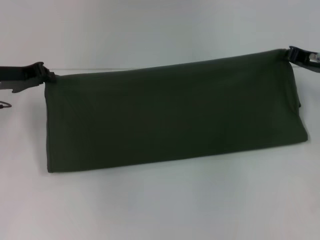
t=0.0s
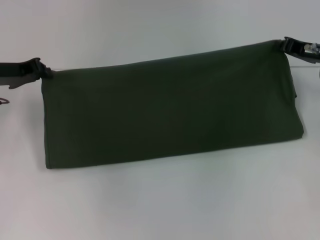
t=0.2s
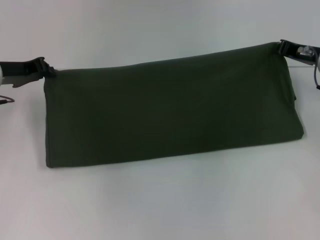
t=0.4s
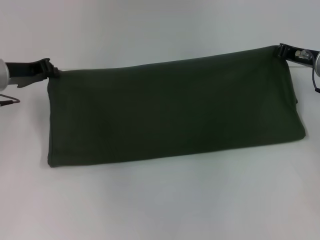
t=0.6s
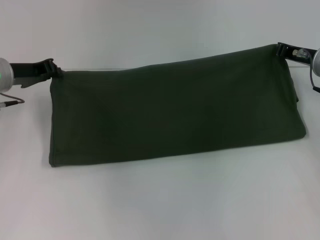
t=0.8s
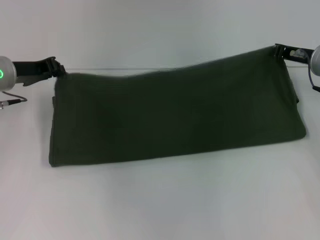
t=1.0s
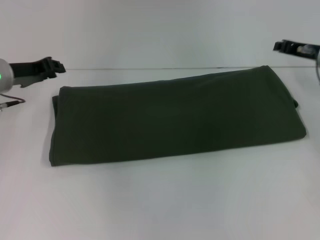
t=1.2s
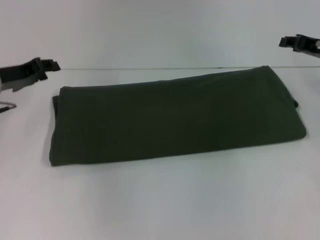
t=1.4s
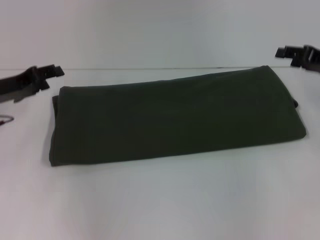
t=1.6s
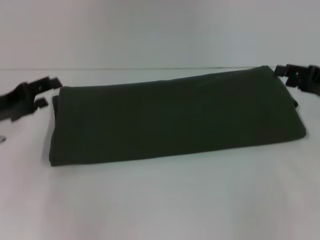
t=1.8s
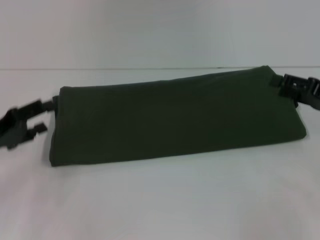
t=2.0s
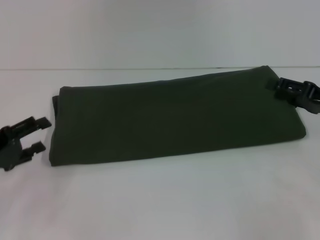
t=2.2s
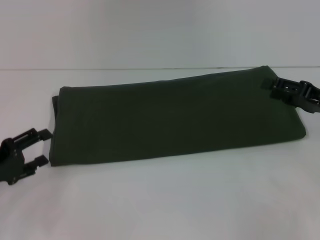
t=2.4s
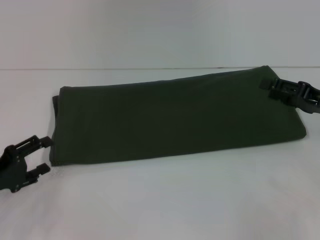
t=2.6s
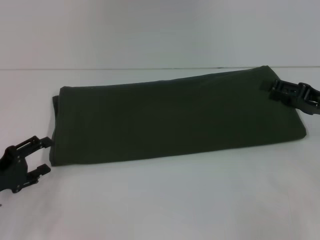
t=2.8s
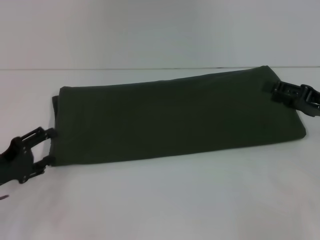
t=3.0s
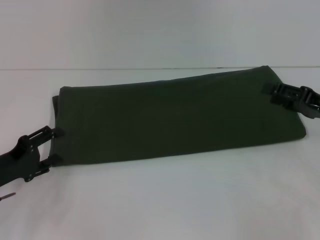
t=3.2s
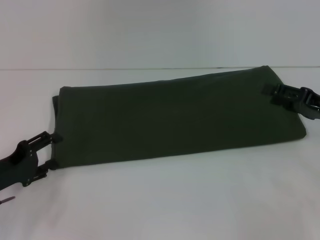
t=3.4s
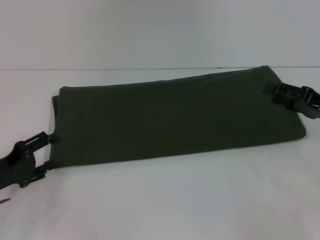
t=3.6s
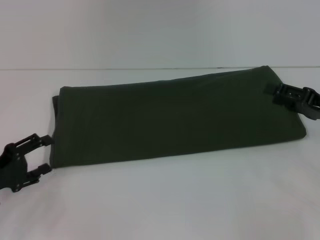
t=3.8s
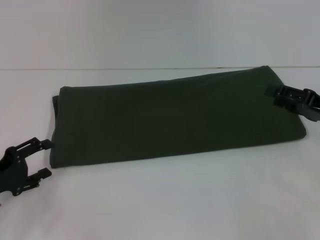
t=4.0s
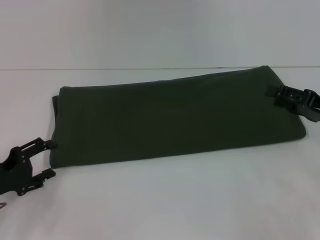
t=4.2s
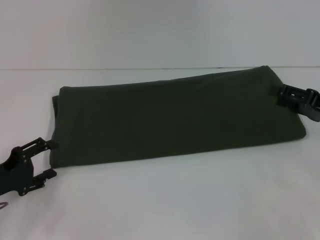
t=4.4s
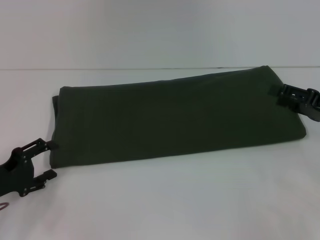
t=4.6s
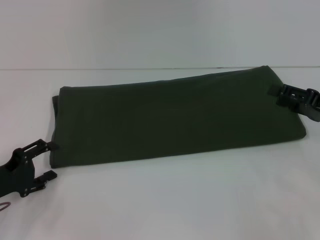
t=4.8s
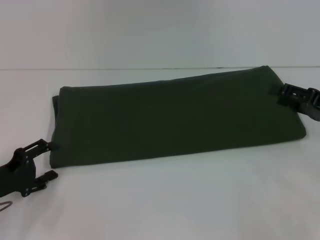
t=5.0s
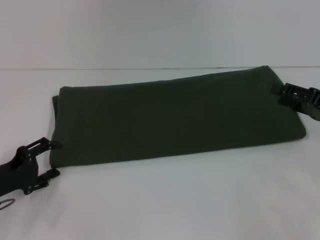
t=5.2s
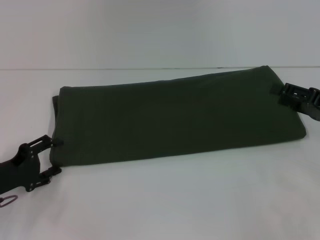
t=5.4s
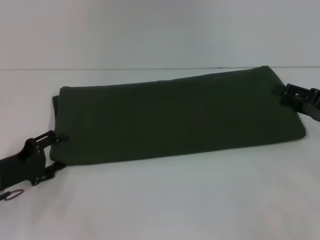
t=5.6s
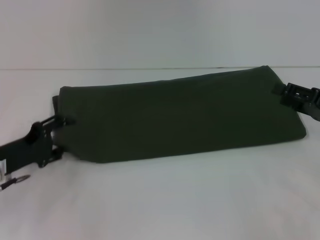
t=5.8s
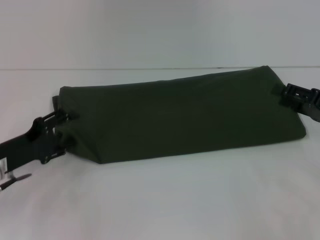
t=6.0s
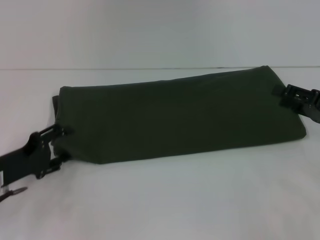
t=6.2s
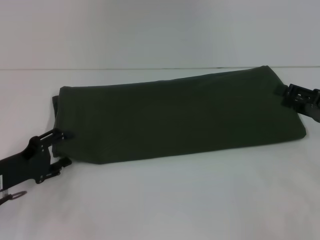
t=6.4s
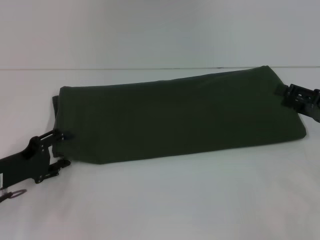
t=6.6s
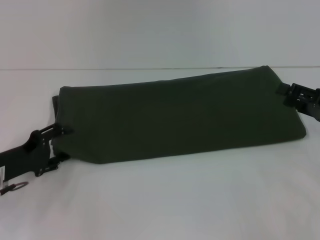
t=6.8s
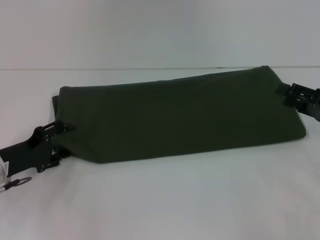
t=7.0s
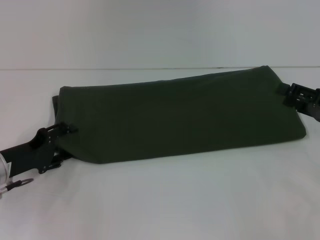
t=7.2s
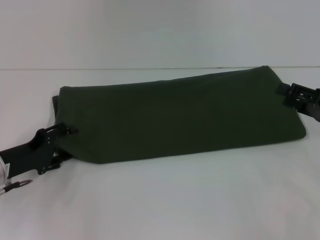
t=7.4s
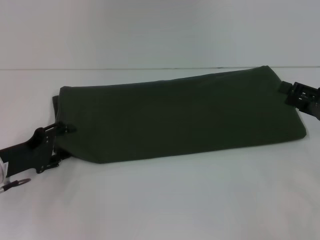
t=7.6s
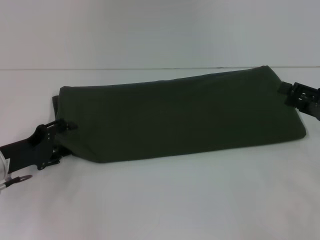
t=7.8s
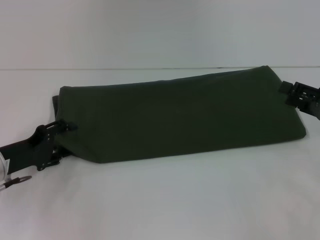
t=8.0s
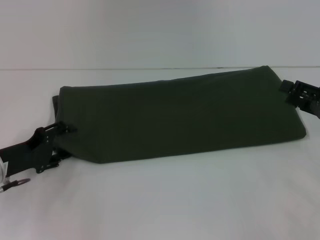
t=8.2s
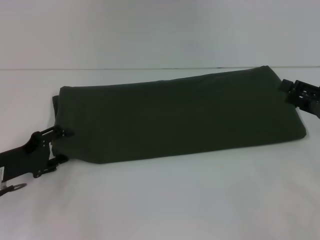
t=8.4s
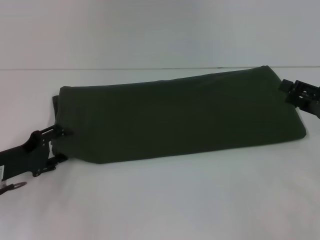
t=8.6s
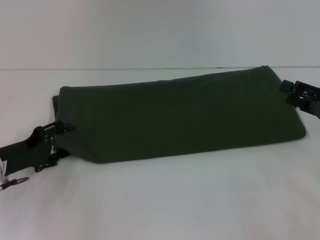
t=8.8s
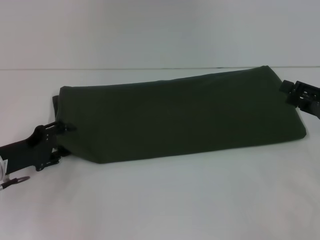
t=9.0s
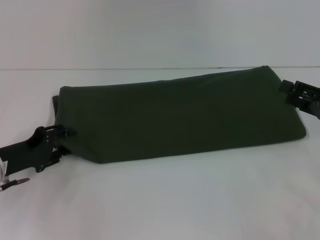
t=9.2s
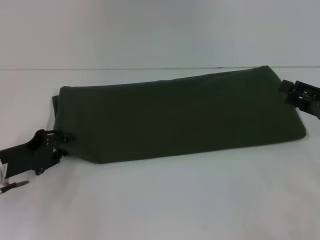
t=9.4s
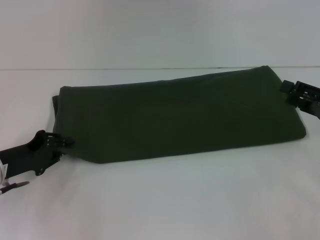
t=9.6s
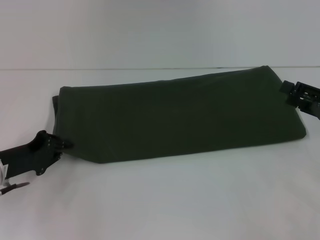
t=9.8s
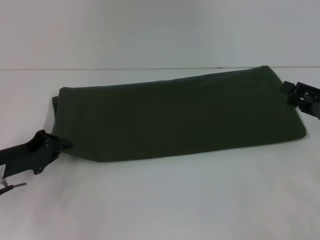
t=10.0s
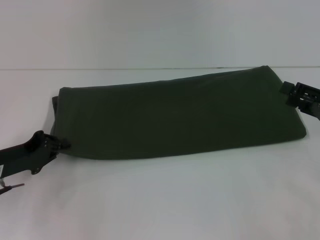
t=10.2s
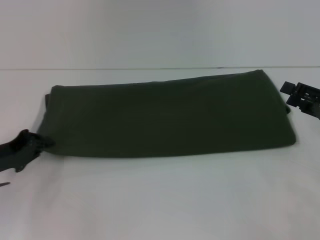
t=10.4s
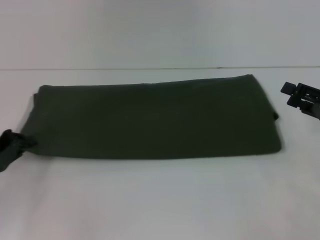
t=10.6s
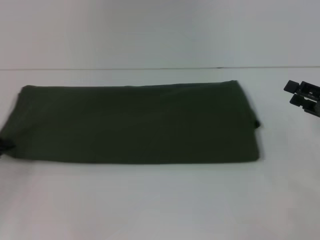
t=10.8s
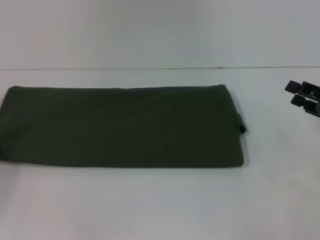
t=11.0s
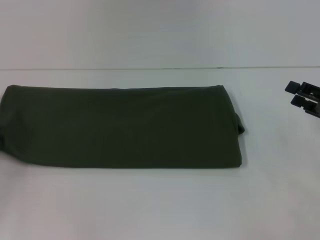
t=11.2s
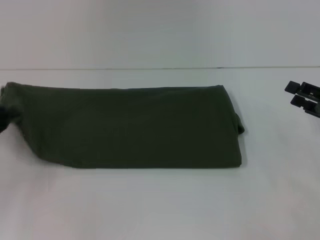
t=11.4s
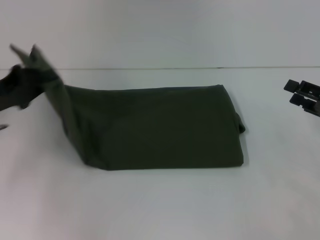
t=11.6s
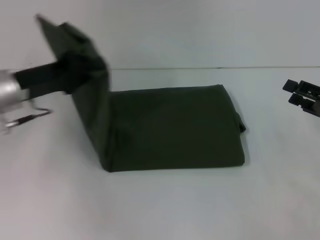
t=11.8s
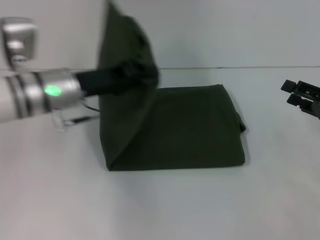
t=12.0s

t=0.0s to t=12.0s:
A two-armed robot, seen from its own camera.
t=0.0s to t=1.6s: The left gripper opens up, while the right gripper opens up.
t=1.6s to t=3.0s: The left gripper travels backward and downward by roughly 15 cm, and opens its fingers. Meanwhile the right gripper is displaced backward by approximately 5 cm.
t=3.0s to t=4.4s: The grippers move only a little.
t=4.4s to t=6.0s: The left gripper moves approximately 5 cm.
t=6.0s to t=7.6s: The grippers stay close to where they were, moving slightly.
t=7.6s to t=9.0s: Neither gripper changes place.
t=9.0s to t=10.4s: The left gripper closes its fingers.
t=10.4s to t=12.0s: The left gripper heads to the right, upward and forward, covering roughly 20 cm.

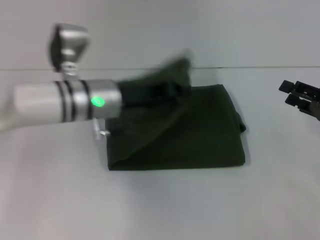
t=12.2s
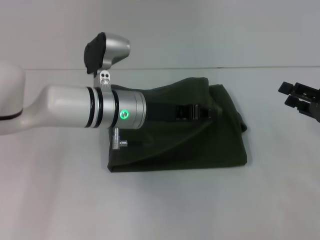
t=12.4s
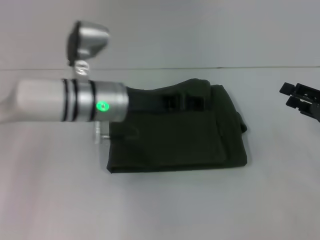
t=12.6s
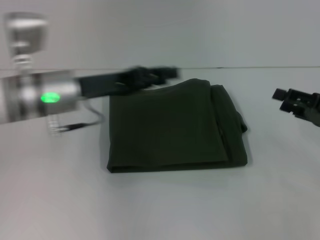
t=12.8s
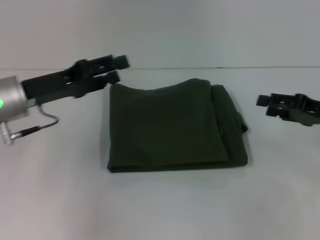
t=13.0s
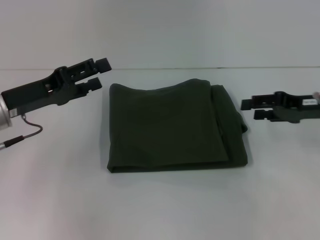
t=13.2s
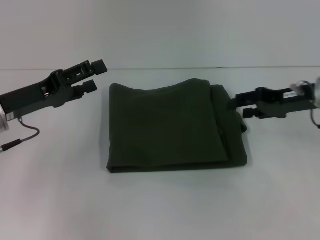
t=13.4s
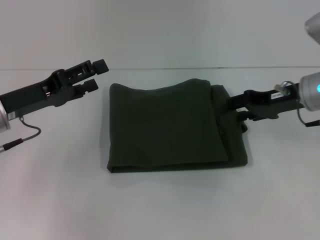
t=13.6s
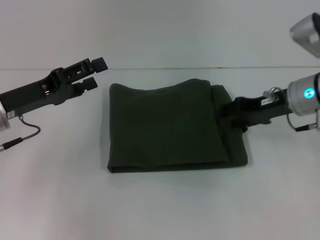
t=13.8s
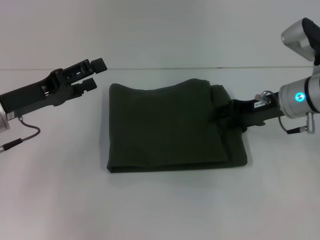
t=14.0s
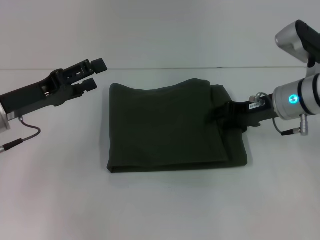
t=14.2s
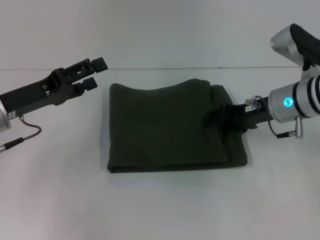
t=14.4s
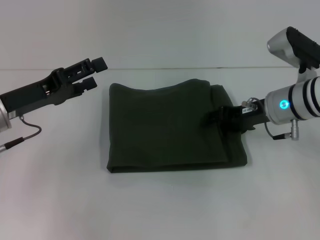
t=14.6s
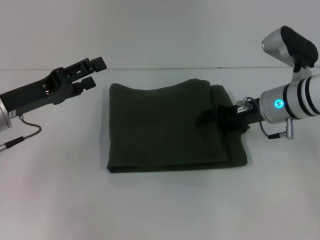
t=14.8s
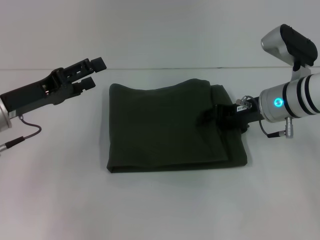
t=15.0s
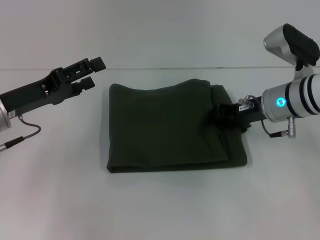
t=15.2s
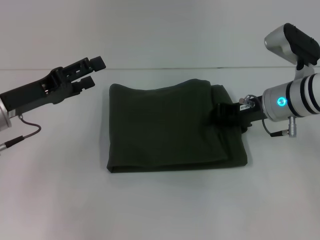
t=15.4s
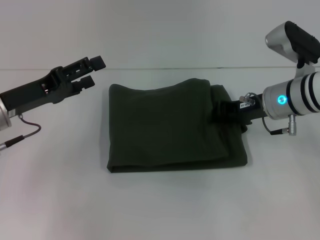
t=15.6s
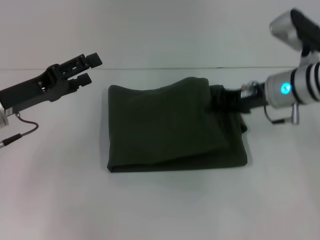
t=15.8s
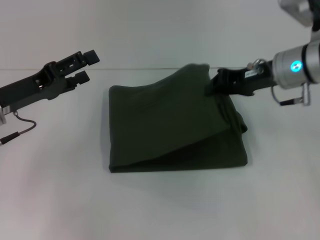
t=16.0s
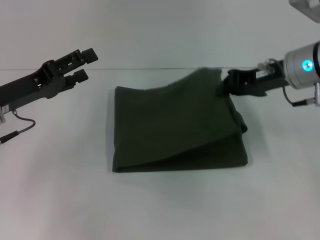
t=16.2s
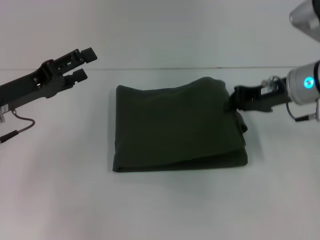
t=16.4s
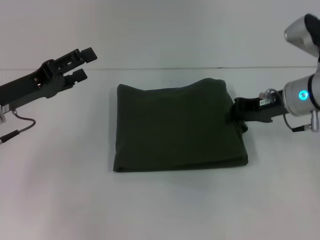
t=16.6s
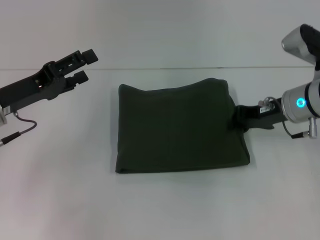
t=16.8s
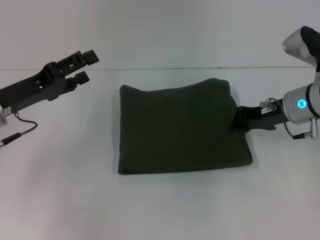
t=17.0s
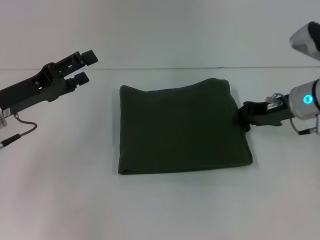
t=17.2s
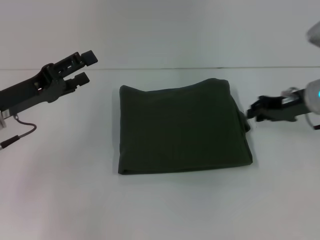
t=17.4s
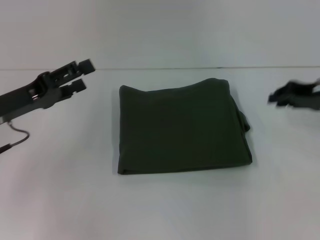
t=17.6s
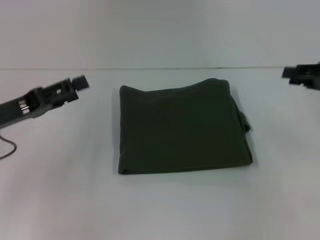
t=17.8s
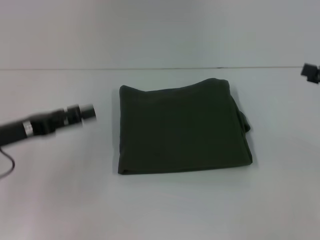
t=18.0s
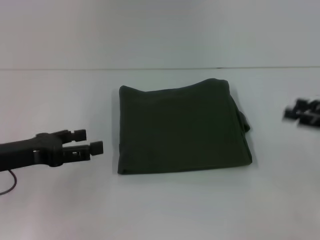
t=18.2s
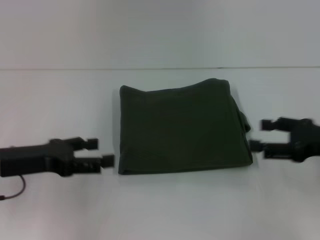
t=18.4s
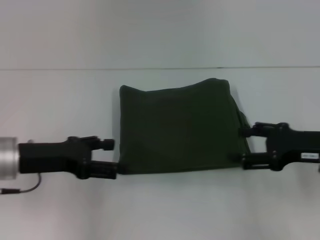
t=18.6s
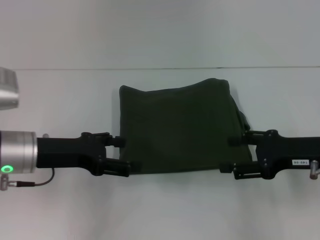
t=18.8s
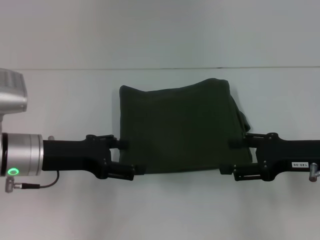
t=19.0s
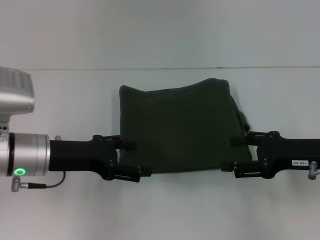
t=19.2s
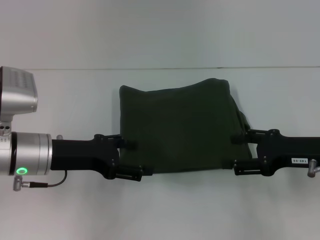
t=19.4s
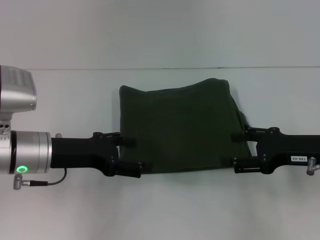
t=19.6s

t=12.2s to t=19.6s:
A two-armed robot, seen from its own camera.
t=12.2s to t=13.6s: The right gripper heads to the left and forward, covering approximately 15 cm; the left gripper goes roughly 15 cm to the left and backward, and opens its fingers.
t=13.6s to t=15.2s: The right gripper shifts by roughly 5 cm.
t=15.2s to t=16.6s: The right gripper closes.
t=16.6s to t=18.2s: The left gripper heads backward, covering about 5 cm. The right gripper moves to the right and backward, roughly 15 cm, and opens its fingers.
t=18.2s to t=19.6s: The right gripper heads to the left, covering roughly 10 cm. The left gripper moves to the right, approximately 5 cm.
